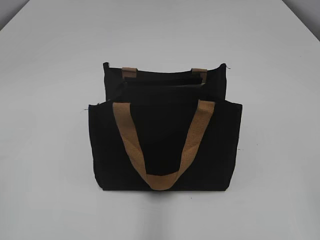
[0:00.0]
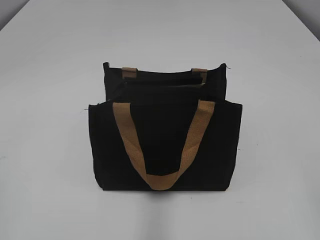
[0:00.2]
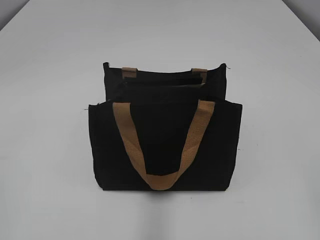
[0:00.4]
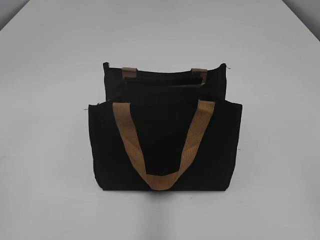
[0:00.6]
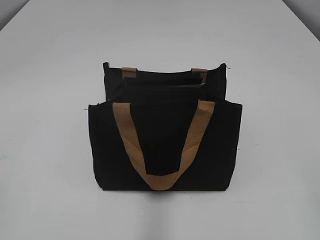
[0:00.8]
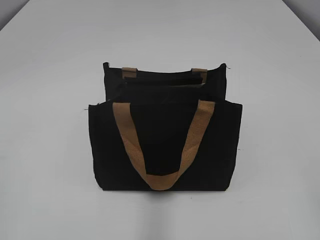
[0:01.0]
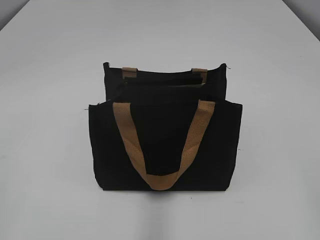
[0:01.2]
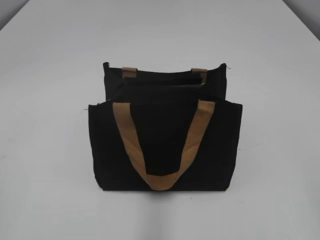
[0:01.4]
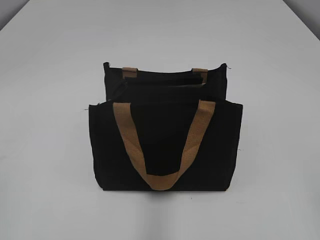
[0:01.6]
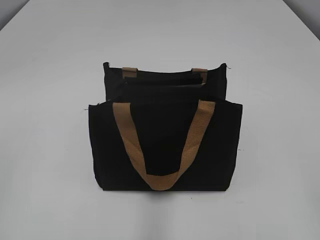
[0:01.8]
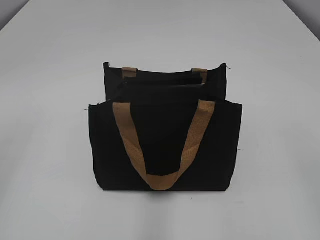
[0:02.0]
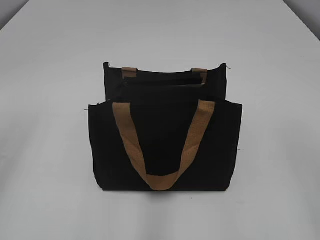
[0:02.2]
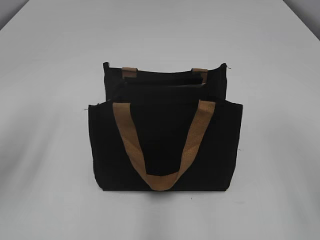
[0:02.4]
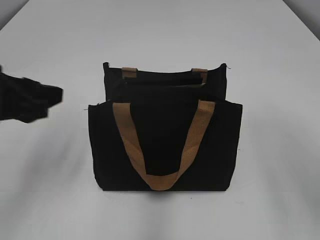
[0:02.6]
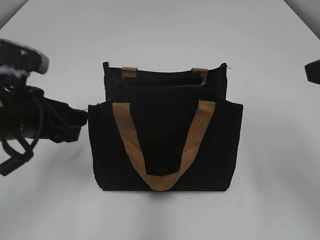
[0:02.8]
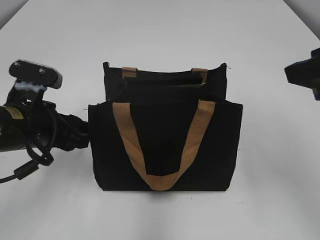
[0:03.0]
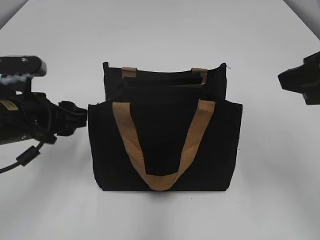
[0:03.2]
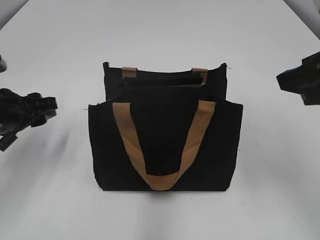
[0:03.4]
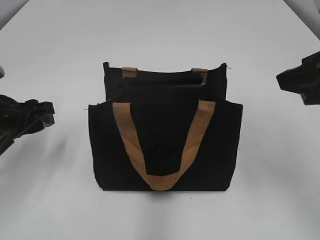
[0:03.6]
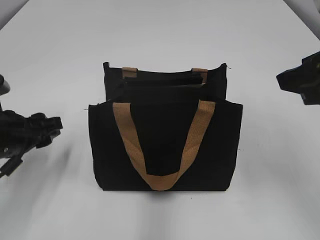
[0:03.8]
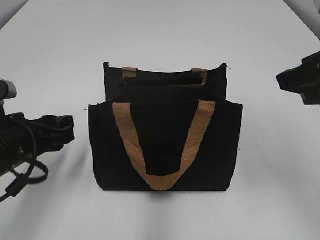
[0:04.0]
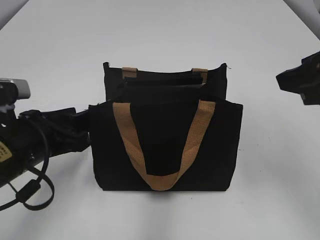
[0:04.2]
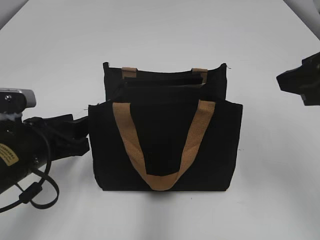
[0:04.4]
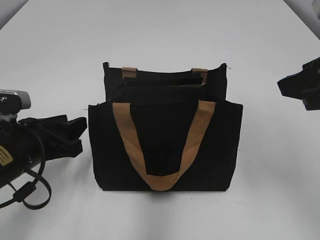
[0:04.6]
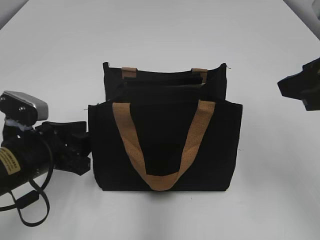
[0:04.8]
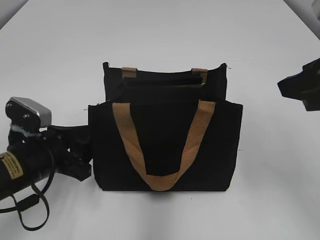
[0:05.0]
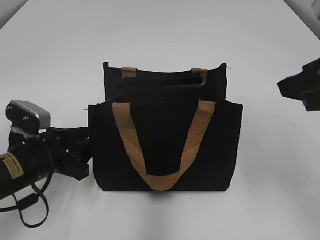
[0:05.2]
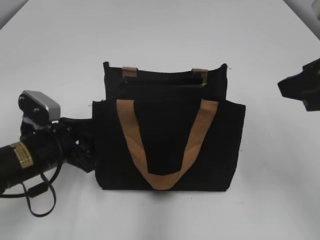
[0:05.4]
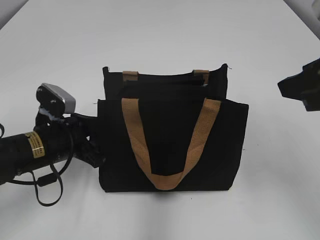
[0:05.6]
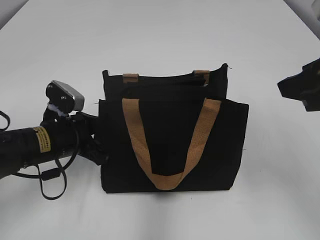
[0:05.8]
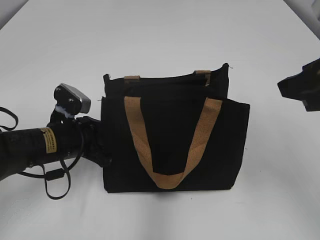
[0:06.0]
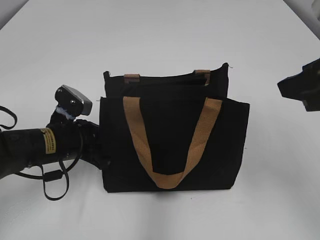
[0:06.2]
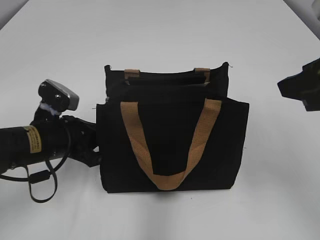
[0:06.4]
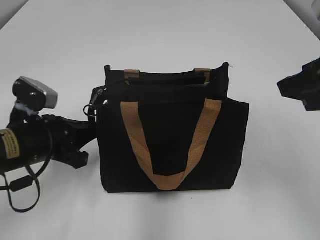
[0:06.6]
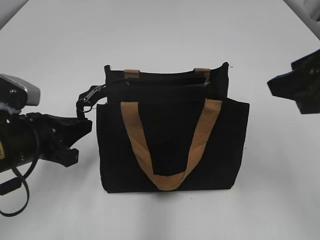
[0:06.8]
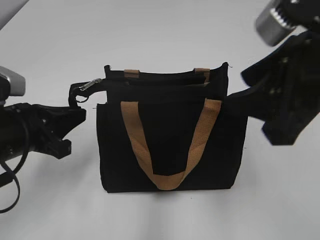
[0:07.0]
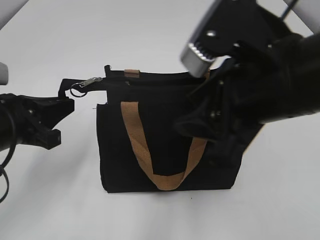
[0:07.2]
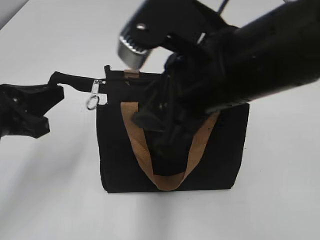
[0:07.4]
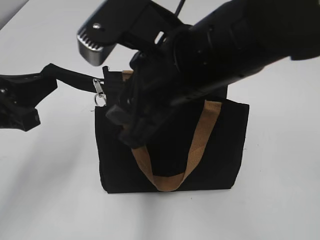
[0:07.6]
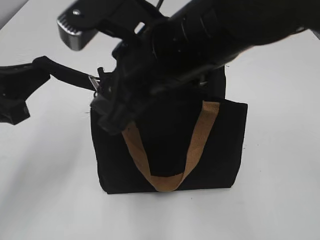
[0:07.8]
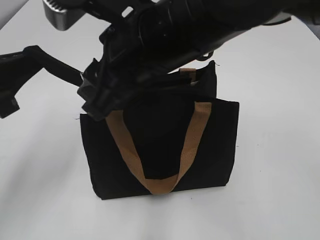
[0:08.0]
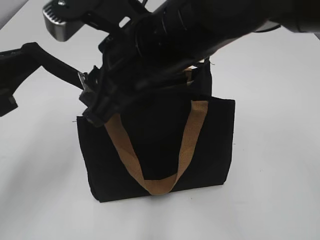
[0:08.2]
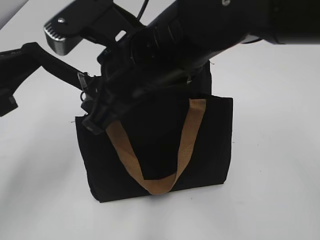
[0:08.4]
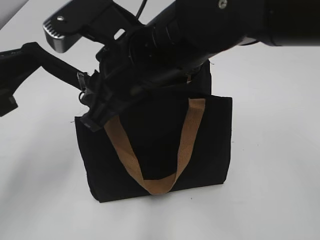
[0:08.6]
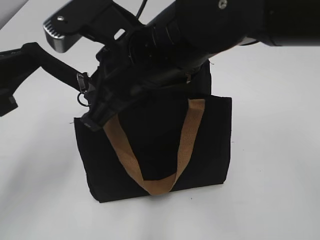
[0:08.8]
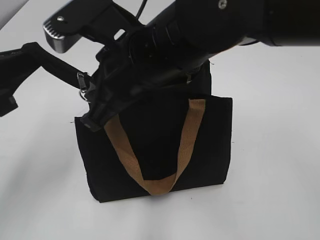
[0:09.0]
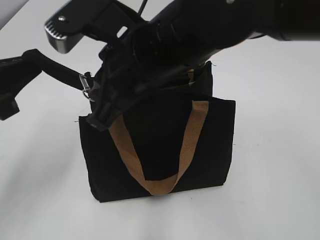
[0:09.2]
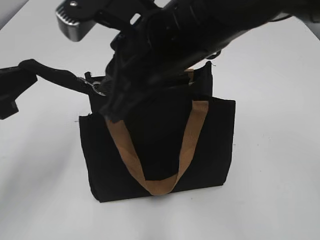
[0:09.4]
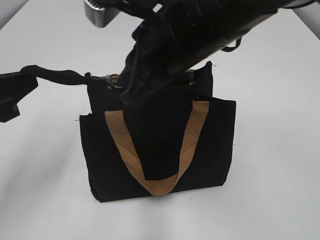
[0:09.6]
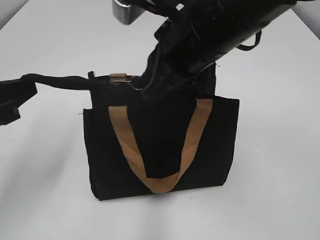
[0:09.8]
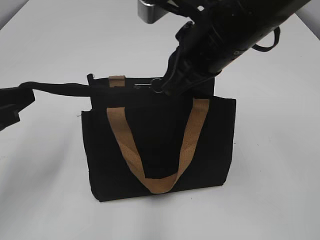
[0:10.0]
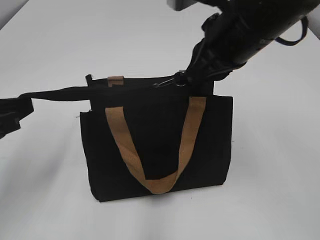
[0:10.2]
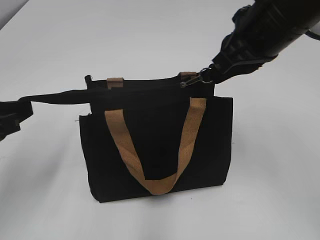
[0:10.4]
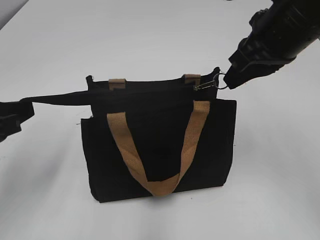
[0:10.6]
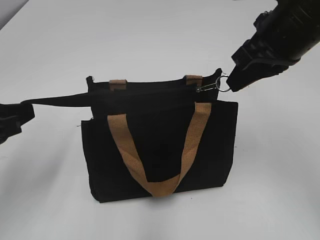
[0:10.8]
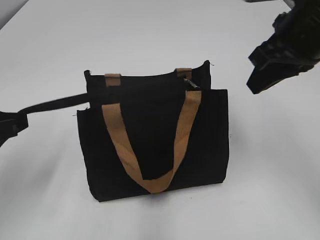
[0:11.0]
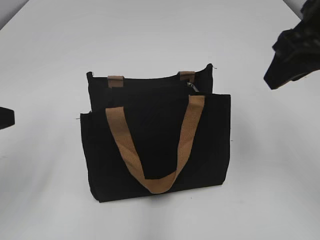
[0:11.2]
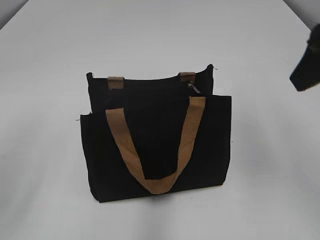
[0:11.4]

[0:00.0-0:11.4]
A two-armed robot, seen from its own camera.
Step, 0:00.0 to 0:10.8: Zip up the bag with your right hand.
0:01.4 to 0:02.8: The left gripper shifts approximately 25 cm forward and to the right, and opens; the right gripper is displaced forward by some 20 cm.
0:04.2 to 0:05.6: The left gripper shifts about 10 cm downward and forward.
0:05.6 to 0:07.2: The right gripper goes about 10 cm to the left, while the left gripper shifts some 10 cm upward, and closes its fingers.
0:07.2 to 0:08.6: The left gripper goes some 5 cm upward; the right gripper goes about 15 cm to the left and forward, and closes its fingers.
0:08.6 to 0:10.0: The right gripper is displaced to the right by roughly 10 cm, and closes its fingers.
0:10.0 to 0:11.4: The right gripper heads to the right and upward, covering about 15 cm, and opens its fingers, while the left gripper goes roughly 5 cm upward, and opens.

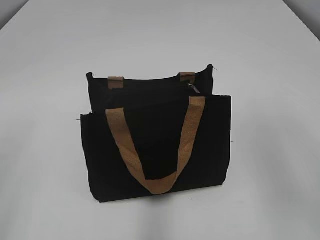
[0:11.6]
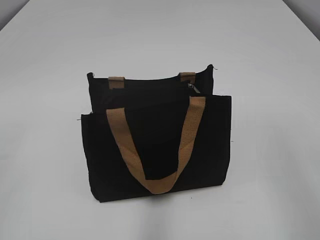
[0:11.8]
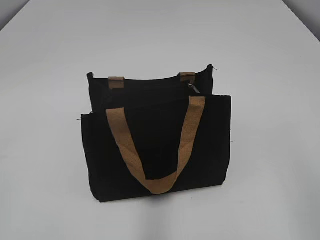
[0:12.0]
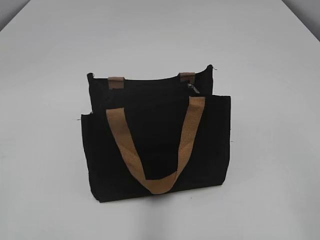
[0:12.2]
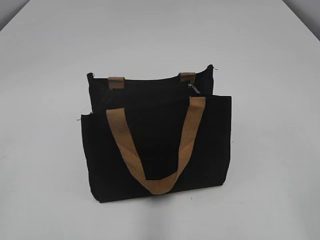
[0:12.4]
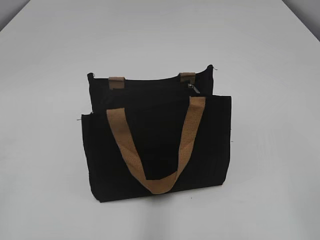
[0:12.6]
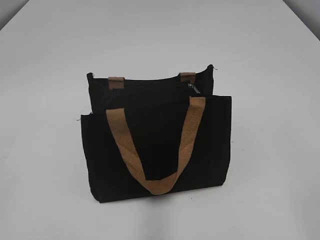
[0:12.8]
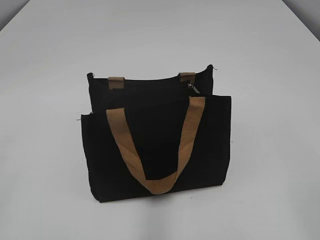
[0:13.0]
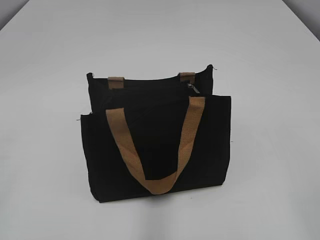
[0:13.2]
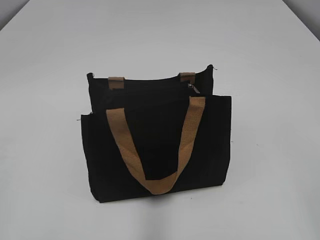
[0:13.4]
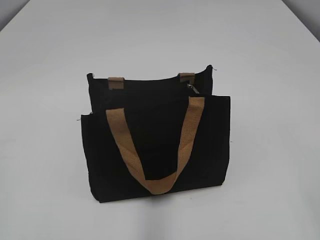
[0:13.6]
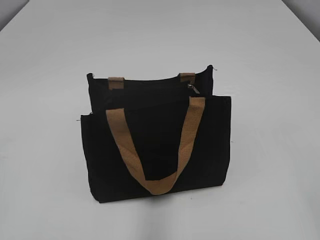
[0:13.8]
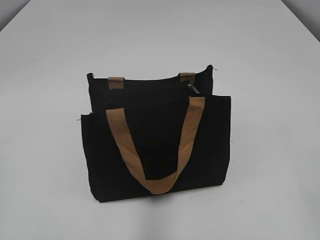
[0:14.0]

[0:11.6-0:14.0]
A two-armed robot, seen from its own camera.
0:11.6 to 0:12.8: The right gripper goes roughly 15 cm backward.

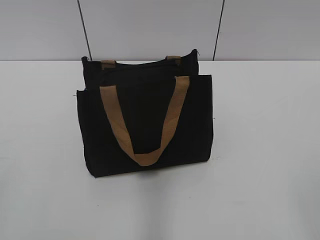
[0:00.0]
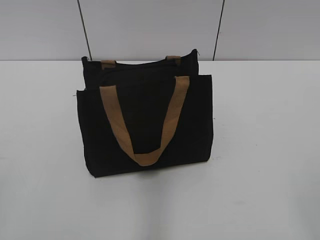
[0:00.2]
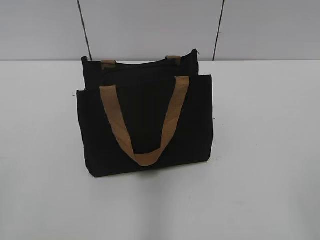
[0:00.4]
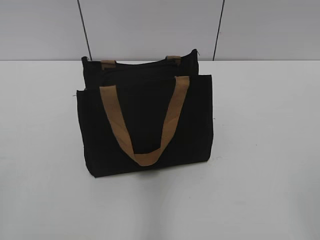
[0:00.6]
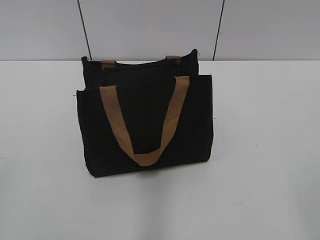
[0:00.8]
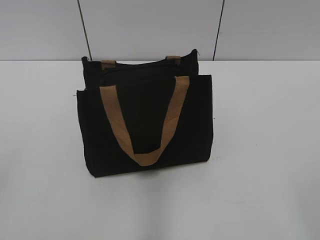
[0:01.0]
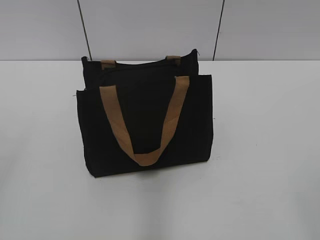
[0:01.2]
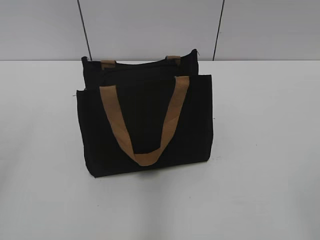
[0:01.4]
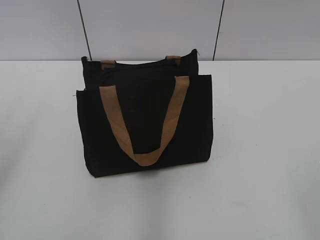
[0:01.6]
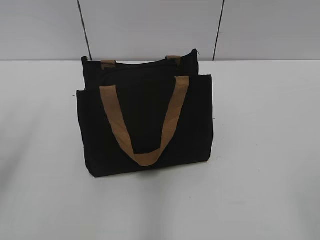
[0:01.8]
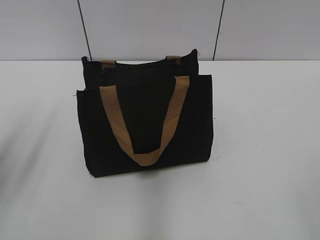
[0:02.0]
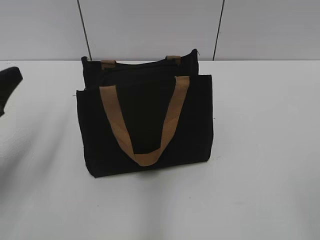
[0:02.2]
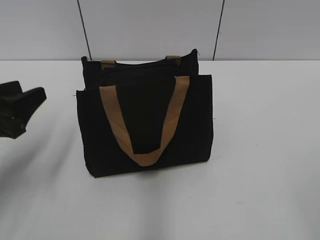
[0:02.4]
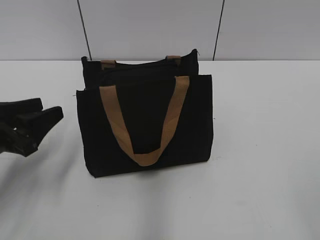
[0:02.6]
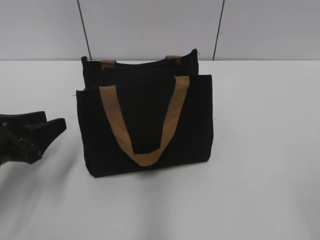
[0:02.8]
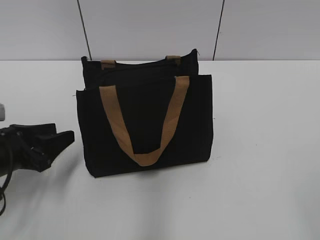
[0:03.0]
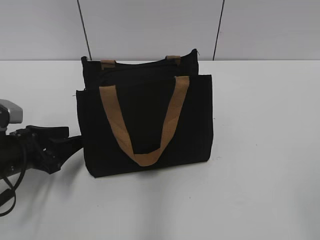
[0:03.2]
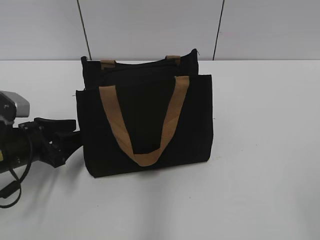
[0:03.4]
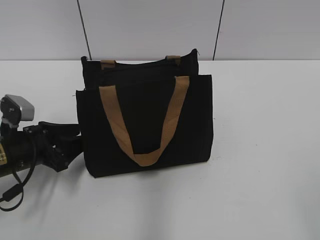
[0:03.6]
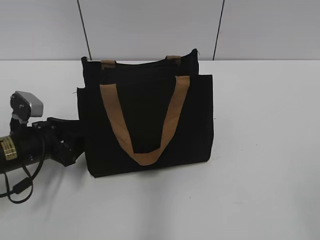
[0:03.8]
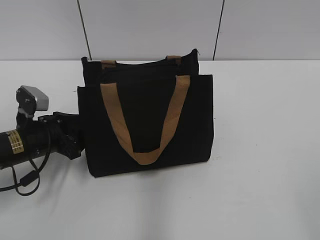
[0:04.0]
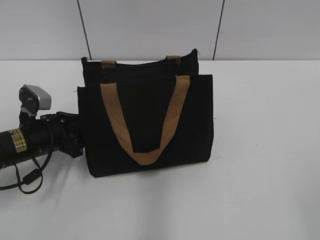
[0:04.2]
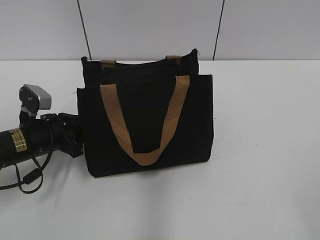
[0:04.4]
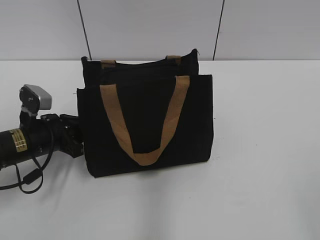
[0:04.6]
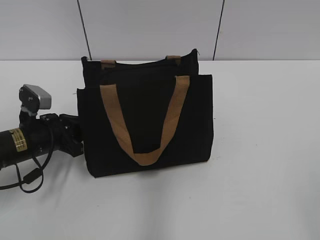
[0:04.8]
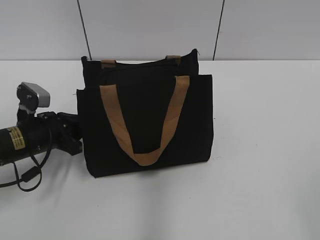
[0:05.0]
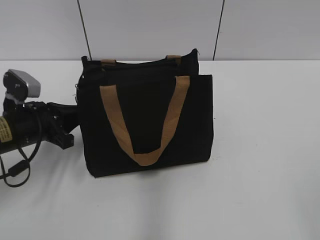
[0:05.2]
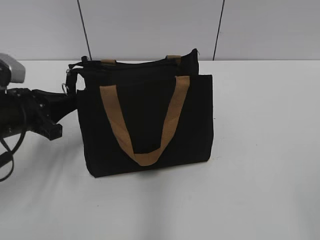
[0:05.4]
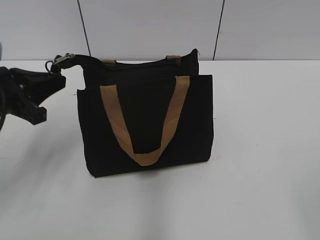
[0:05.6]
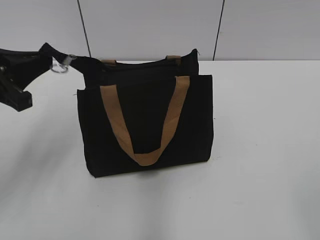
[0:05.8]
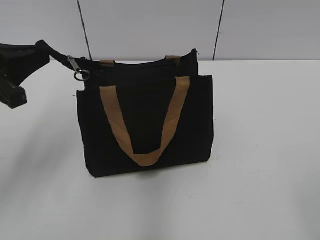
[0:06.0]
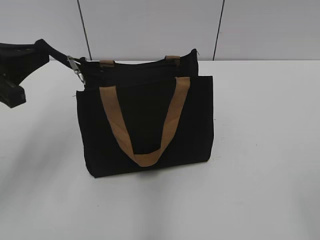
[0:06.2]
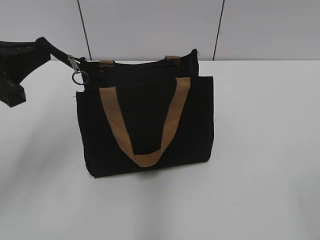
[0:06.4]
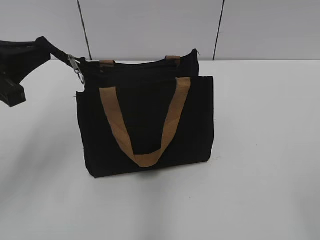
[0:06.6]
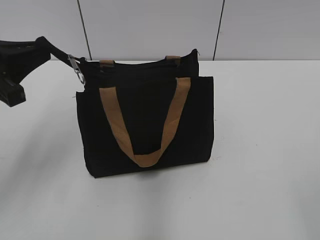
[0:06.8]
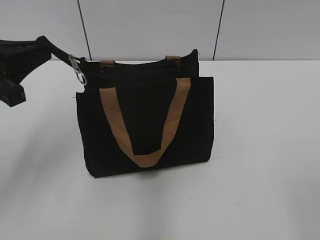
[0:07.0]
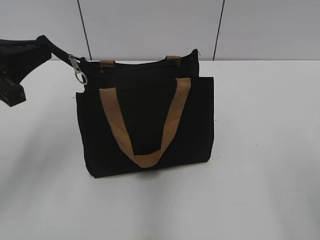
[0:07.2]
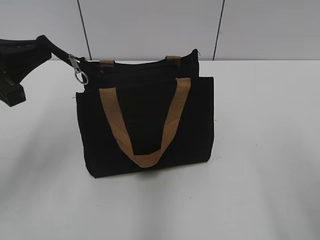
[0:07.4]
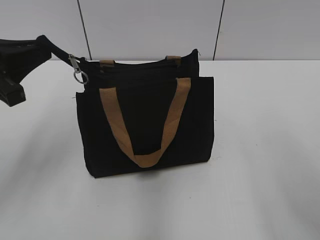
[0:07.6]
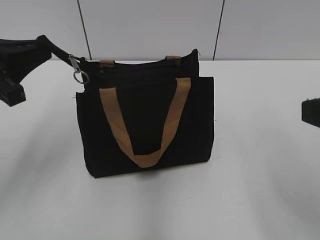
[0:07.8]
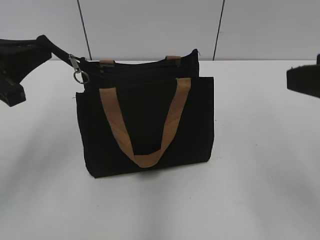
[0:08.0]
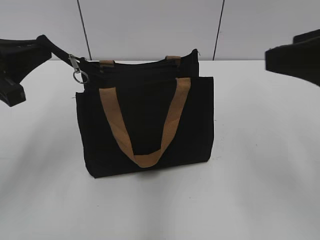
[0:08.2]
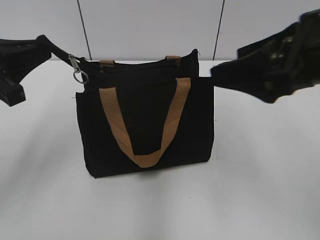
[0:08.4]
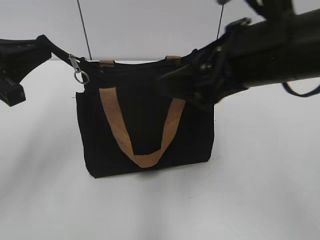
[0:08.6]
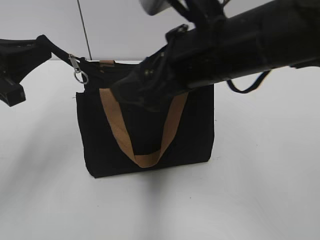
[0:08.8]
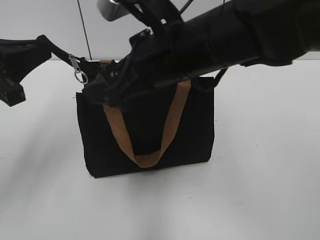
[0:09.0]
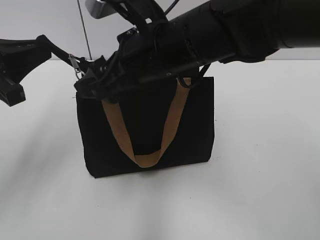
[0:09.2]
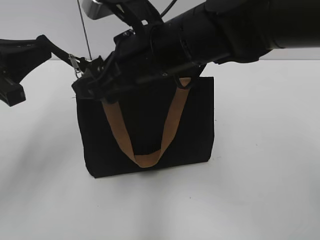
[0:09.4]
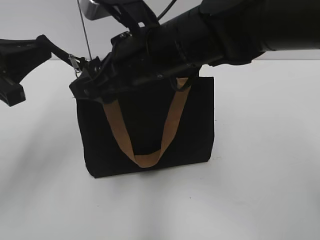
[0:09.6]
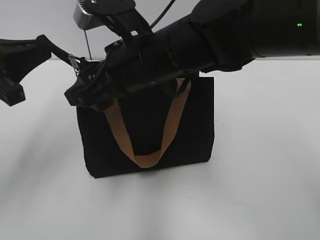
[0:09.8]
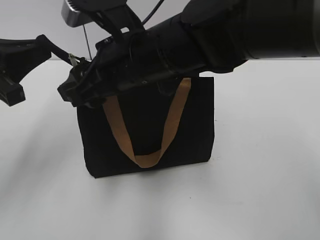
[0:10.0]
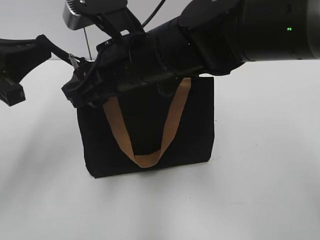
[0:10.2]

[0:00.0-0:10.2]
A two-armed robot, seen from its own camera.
0:01.4 to 0:03.0: The left gripper is displaced downward and forward by about 25 cm.
0:03.0 to 0:04.4: The left gripper goes approximately 5 cm forward, and closes.
0:04.4 to 0:05.8: The left gripper moves upward, some 15 cm, and closes.
0:05.8 to 0:07.2: The grippers move only a little.
0:07.2 to 0:08.8: The right gripper is displaced forward and to the left by about 30 cm.
0:08.8 to 0:10.2: The right gripper travels to the left by approximately 10 cm.
